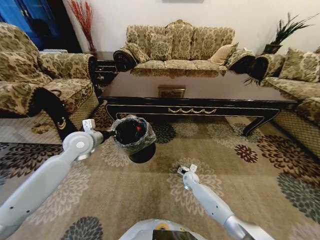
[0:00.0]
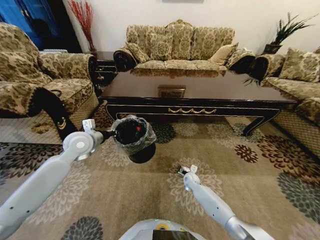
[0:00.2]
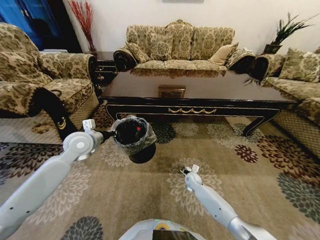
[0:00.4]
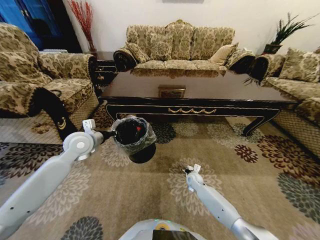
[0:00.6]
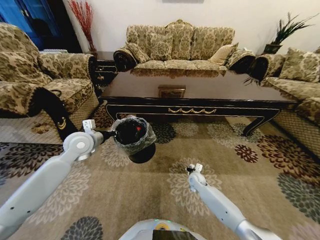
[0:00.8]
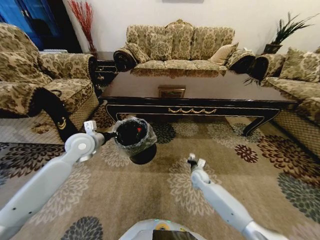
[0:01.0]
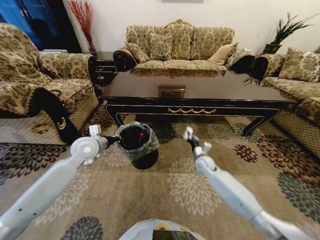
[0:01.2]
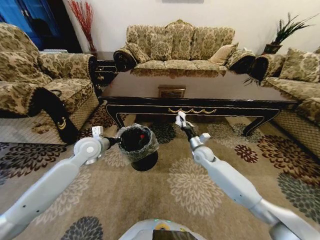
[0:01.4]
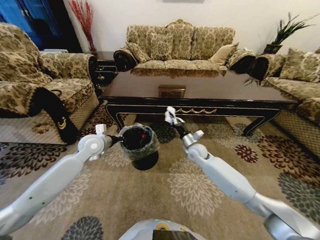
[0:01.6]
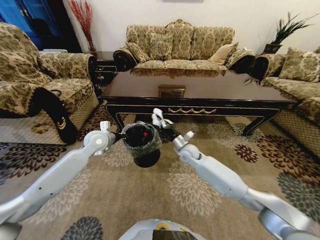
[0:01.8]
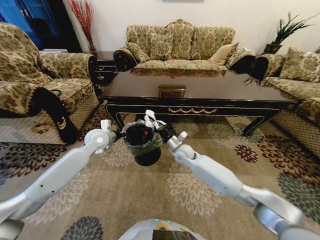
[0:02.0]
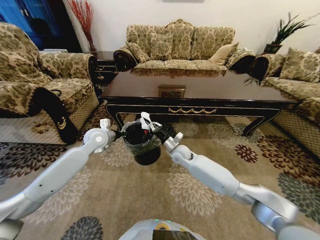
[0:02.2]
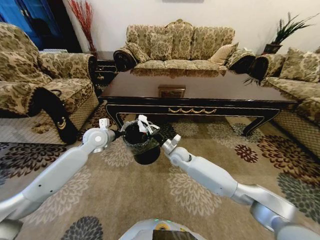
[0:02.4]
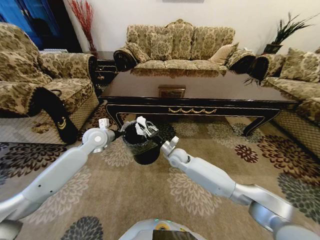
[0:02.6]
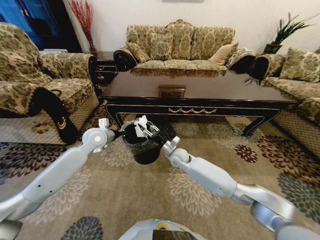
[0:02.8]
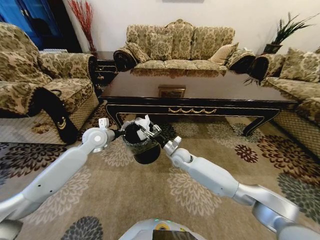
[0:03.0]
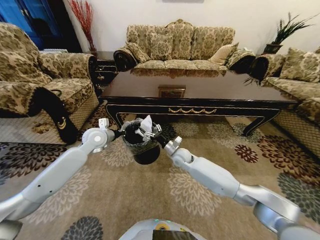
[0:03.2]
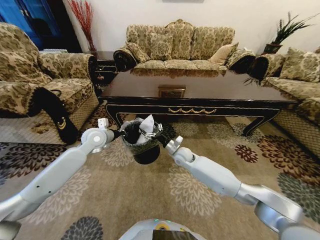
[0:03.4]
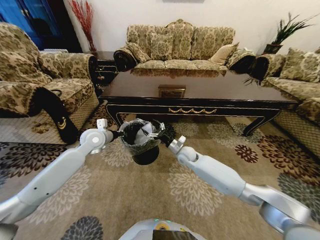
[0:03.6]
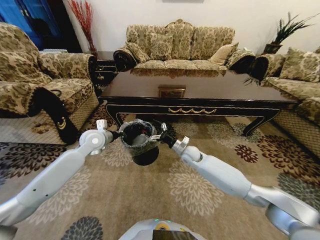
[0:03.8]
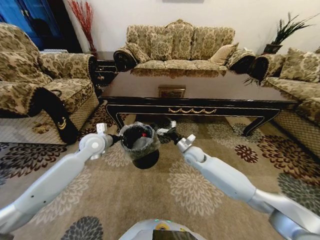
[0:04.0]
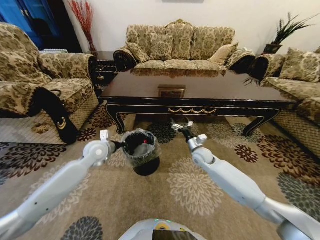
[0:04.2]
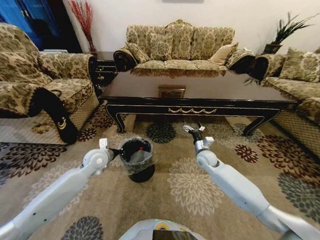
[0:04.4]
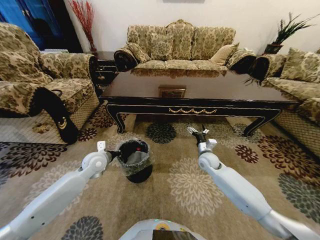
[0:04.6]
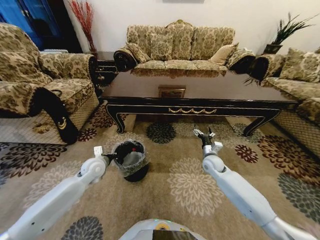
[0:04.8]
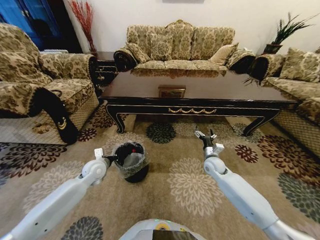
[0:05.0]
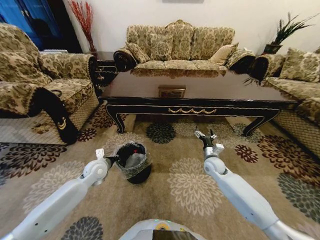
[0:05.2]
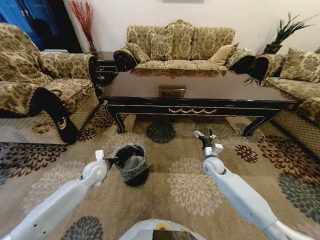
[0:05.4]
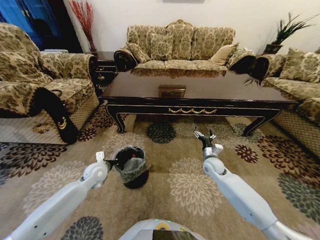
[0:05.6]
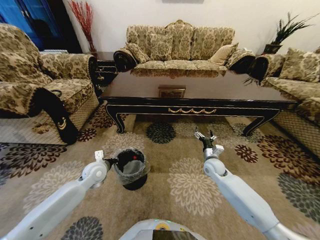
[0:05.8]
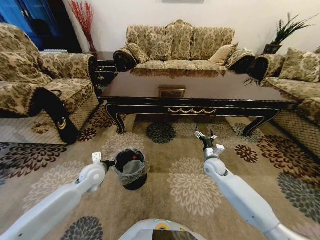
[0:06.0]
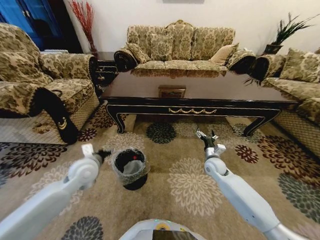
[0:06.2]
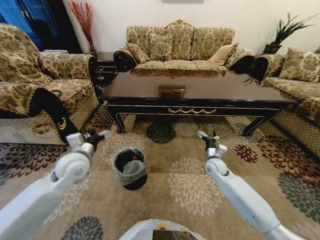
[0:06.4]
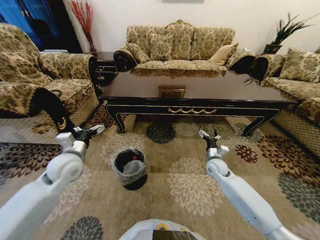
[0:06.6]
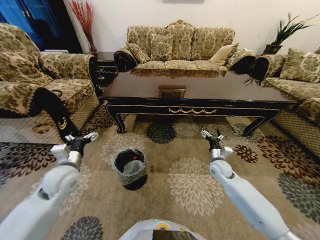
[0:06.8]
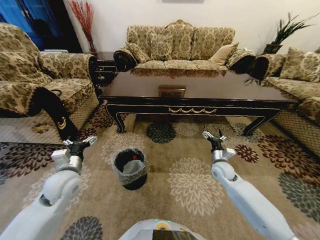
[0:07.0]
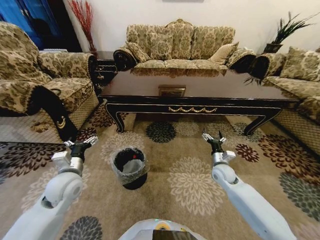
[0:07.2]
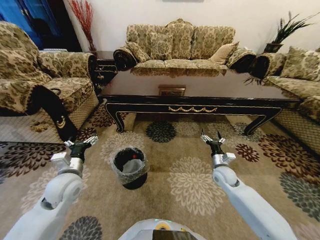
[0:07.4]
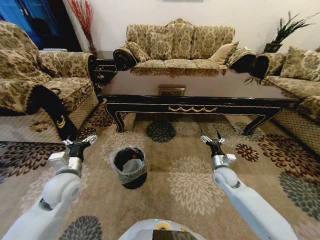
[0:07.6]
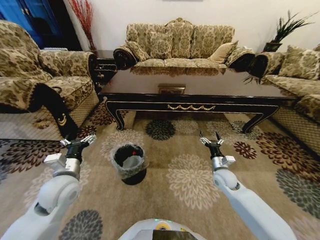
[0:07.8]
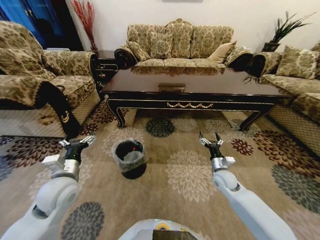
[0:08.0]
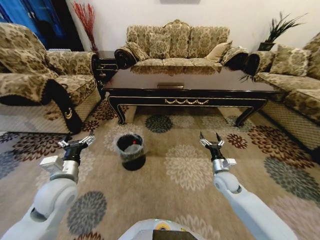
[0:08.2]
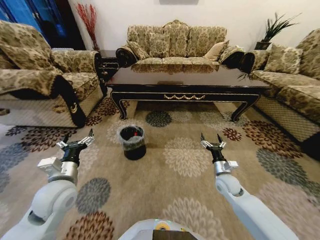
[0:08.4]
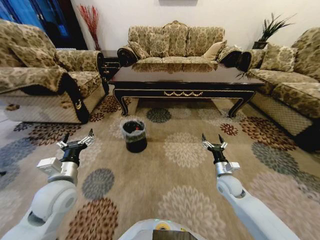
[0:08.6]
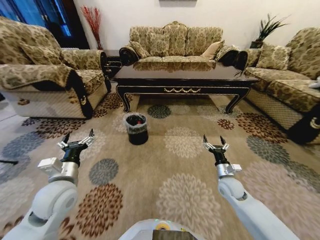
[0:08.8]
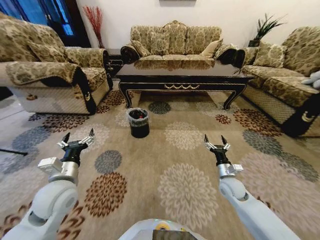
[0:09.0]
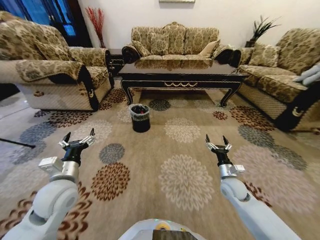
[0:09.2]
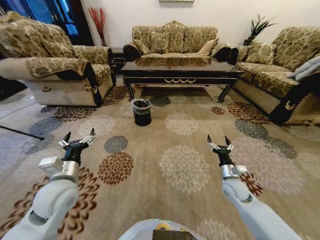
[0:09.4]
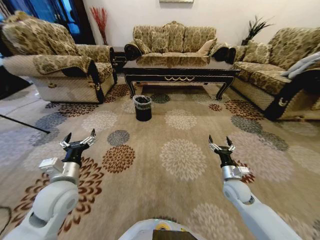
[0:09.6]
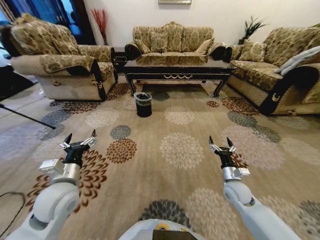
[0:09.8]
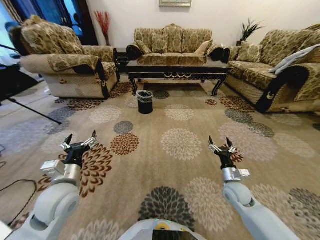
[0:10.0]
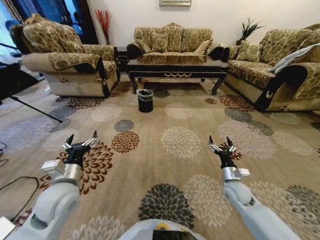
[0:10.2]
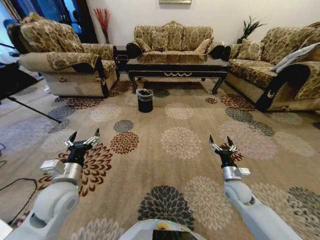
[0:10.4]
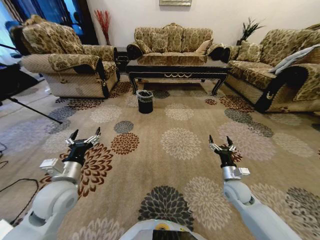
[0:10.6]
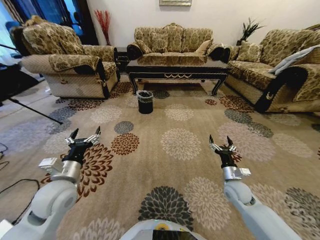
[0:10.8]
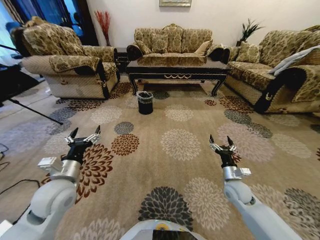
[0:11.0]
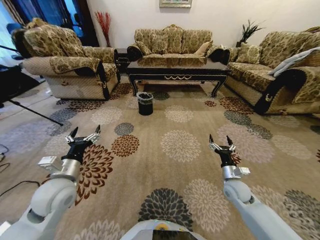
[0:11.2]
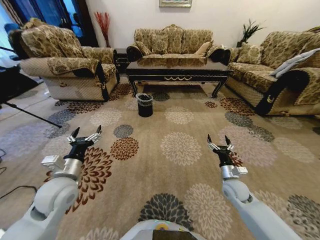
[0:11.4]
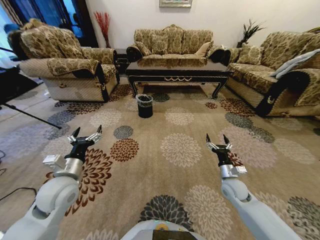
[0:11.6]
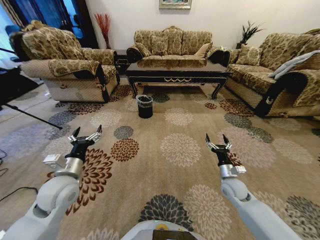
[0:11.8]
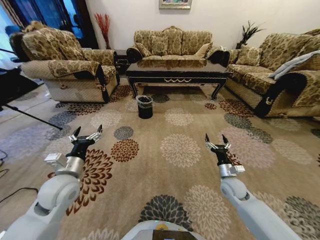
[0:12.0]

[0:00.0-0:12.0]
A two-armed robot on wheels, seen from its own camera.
Task of the whole recording: Move to the front of the table and pick up the trash from the floor, then place it into the trash bin.
0:00.0 to 0:01.6: The left gripper shifts by approximately 5 cm. Meanwhile the right gripper moves upward, about 20 cm, and closes its fingers.
0:01.6 to 0:03.0: The right gripper moves to the left, about 10 cm, and opens.
0:03.0 to 0:04.4: The right gripper is displaced to the right by approximately 15 cm, and opens. The left gripper moves downward and backward, roughly 10 cm.
0:04.4 to 0:06.0: The left gripper ends up approximately 5 cm from where it was, and opens its fingers. The right gripper ends up approximately 5 cm from where it was.
0:06.0 to 0:07.6: The right gripper ends up about 5 cm from where it was. Meanwhile the left gripper moves backward and upward, about 10 cm, and opens up.

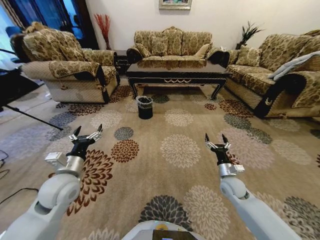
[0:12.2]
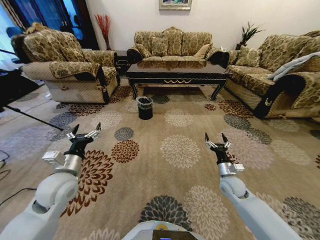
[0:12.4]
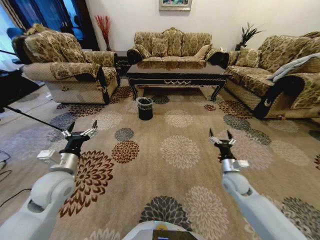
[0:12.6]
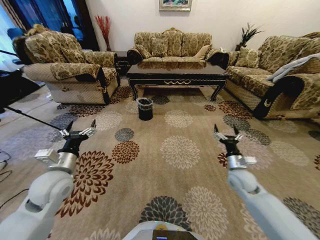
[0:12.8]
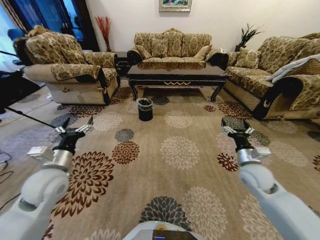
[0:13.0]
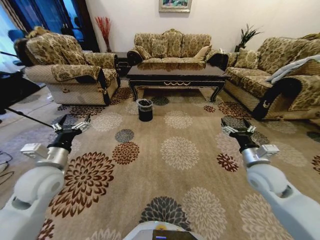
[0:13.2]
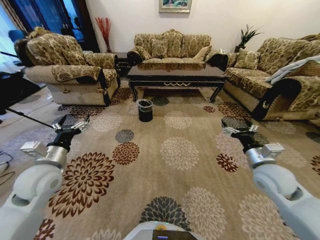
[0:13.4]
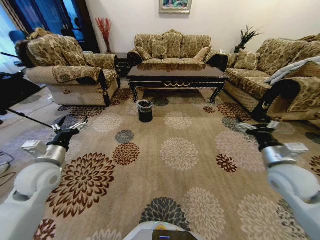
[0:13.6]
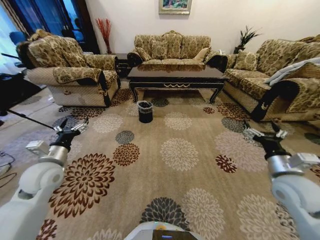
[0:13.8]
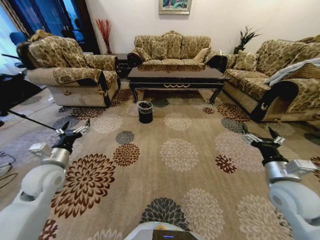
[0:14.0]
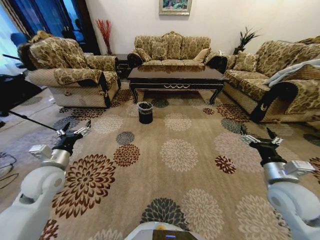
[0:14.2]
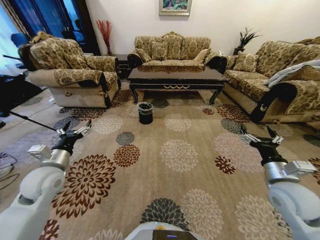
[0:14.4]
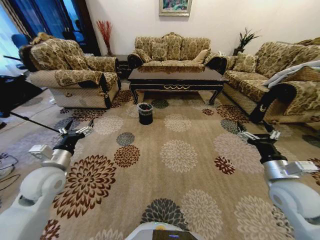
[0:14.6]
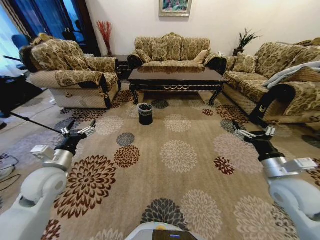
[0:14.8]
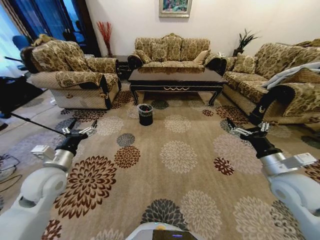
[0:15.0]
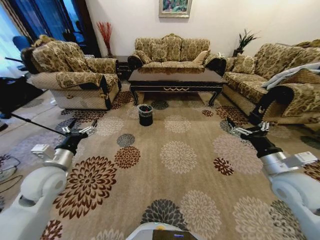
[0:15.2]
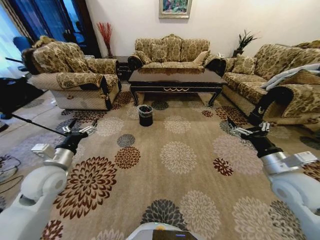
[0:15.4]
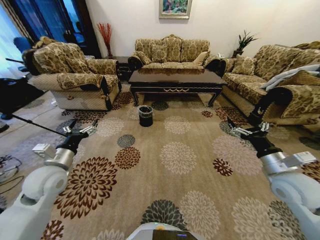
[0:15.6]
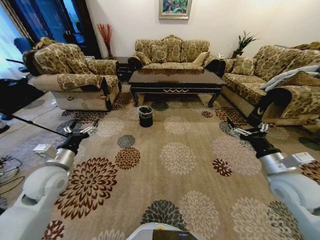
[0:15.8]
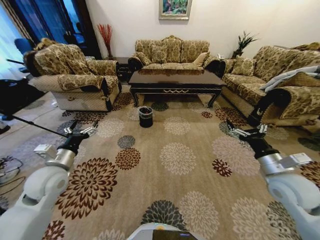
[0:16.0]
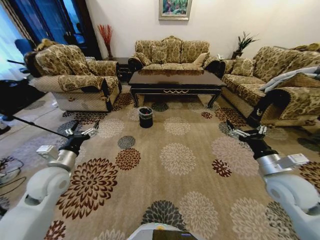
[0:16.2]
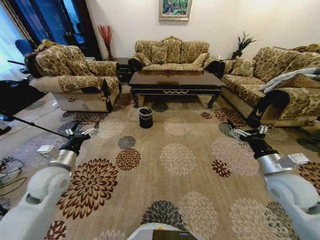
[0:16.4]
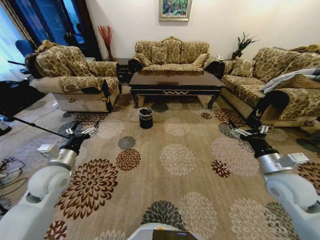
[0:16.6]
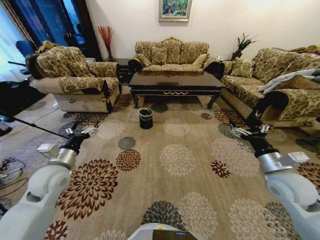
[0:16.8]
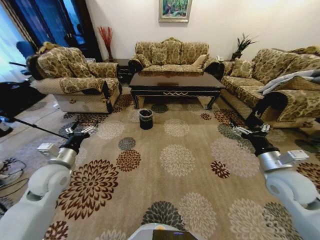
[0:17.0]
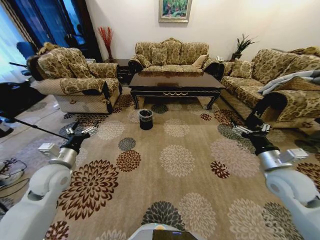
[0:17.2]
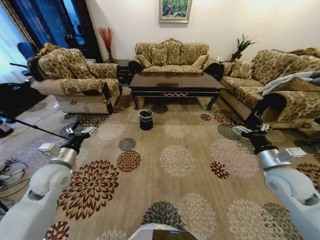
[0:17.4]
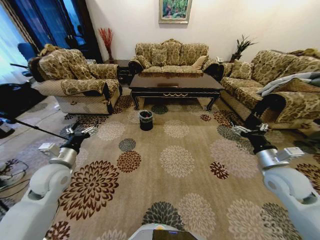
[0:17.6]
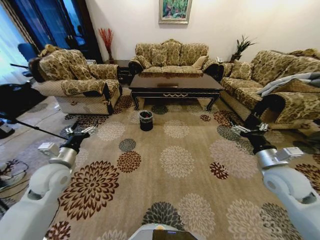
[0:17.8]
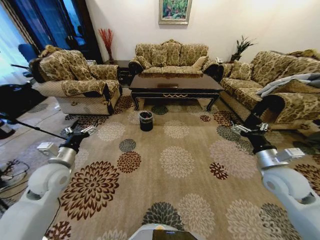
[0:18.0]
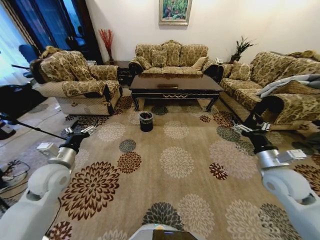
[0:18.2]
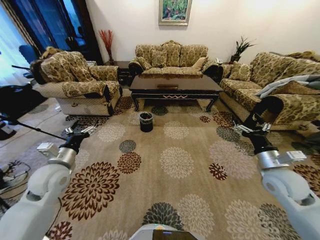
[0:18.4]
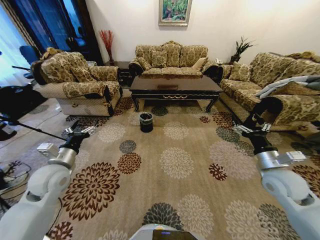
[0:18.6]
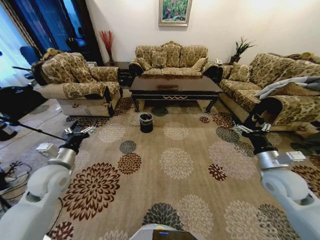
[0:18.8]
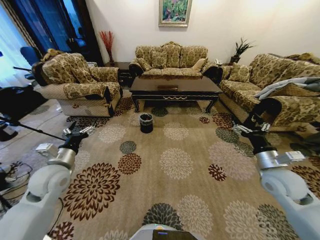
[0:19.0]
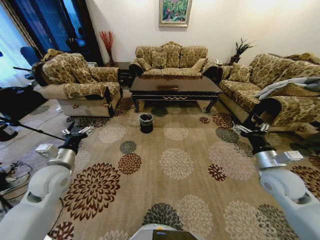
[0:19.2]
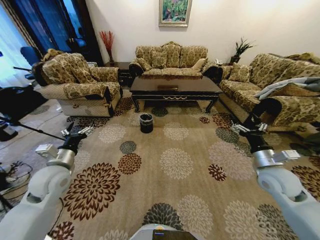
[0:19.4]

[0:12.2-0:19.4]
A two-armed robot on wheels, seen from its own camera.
Task of the whole recording: Move to the front of the table and pick up the trash from the floor, then place it into the trash bin.
0:12.2 to 0:13.6: The right gripper heads upward, covering approximately 20 cm. The left gripper moves to the left, approximately 5 cm.
